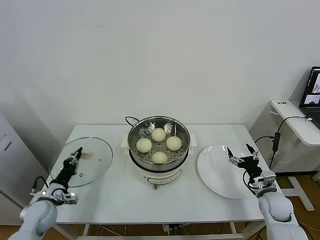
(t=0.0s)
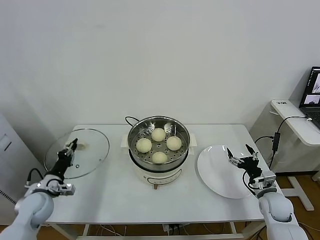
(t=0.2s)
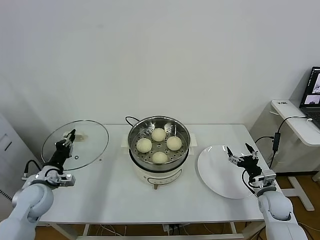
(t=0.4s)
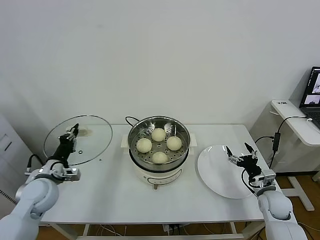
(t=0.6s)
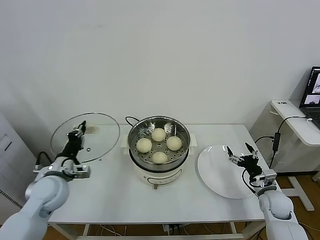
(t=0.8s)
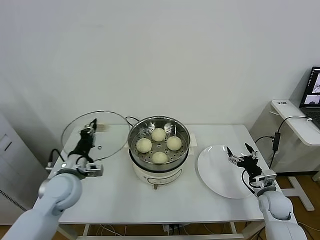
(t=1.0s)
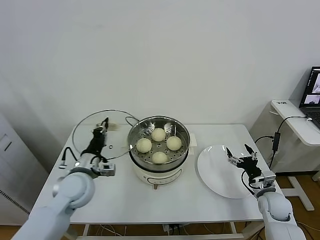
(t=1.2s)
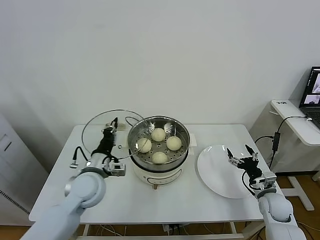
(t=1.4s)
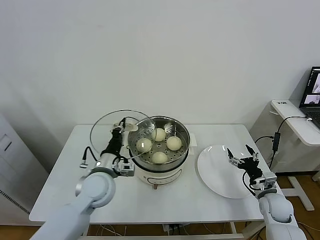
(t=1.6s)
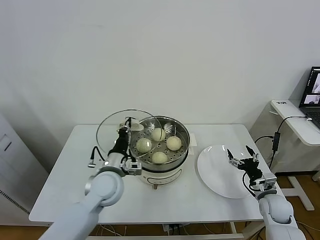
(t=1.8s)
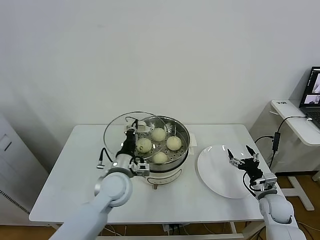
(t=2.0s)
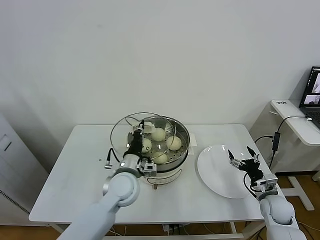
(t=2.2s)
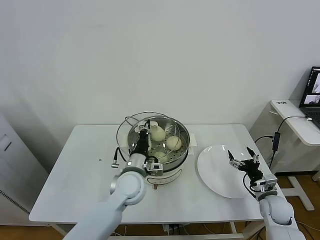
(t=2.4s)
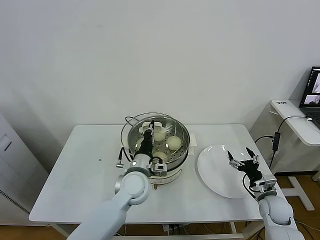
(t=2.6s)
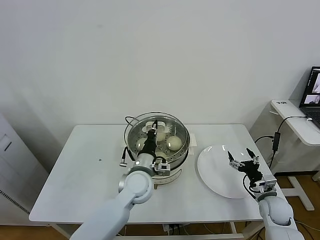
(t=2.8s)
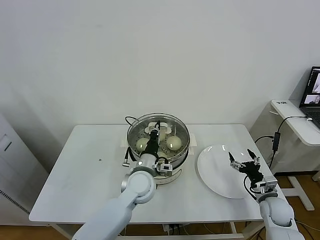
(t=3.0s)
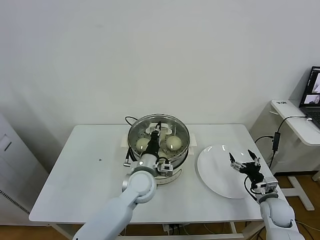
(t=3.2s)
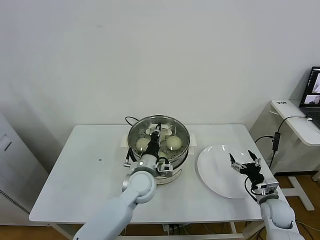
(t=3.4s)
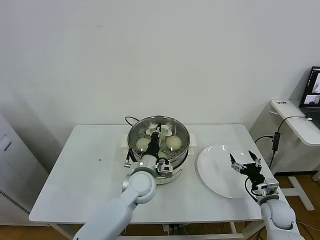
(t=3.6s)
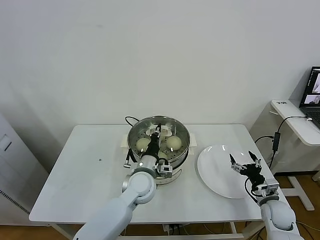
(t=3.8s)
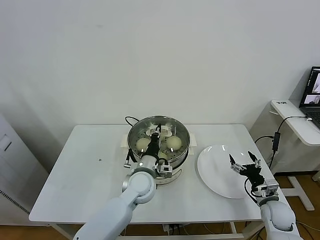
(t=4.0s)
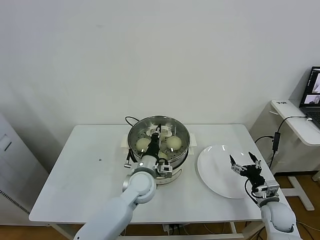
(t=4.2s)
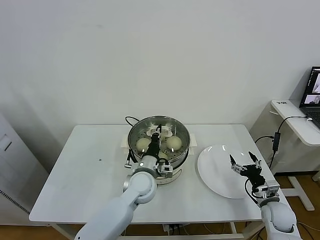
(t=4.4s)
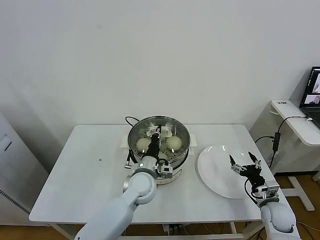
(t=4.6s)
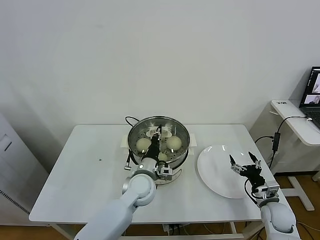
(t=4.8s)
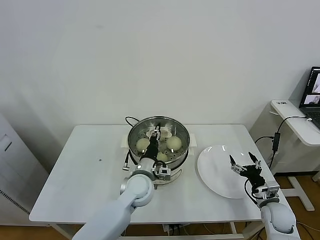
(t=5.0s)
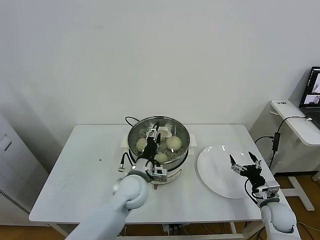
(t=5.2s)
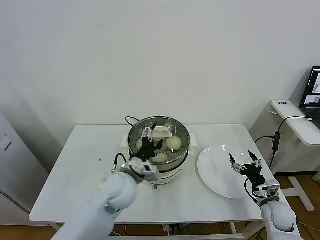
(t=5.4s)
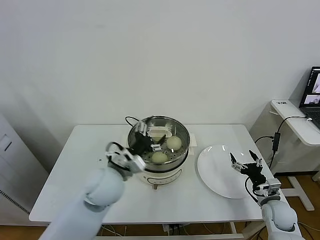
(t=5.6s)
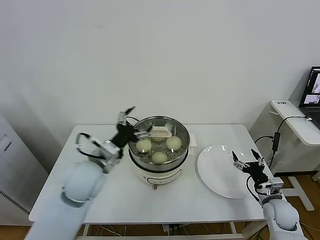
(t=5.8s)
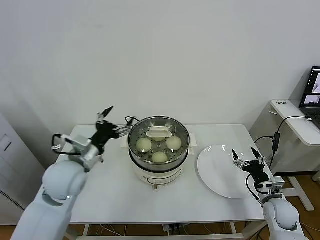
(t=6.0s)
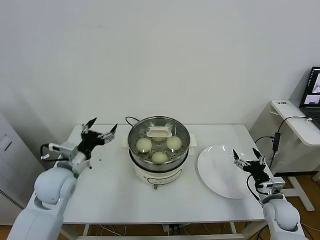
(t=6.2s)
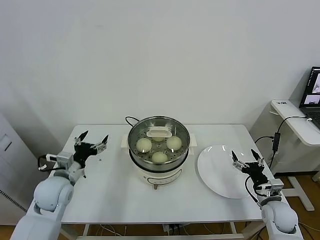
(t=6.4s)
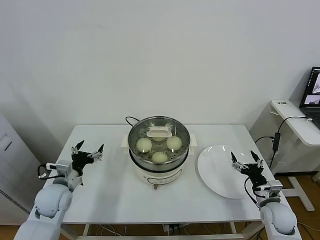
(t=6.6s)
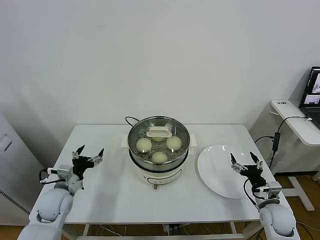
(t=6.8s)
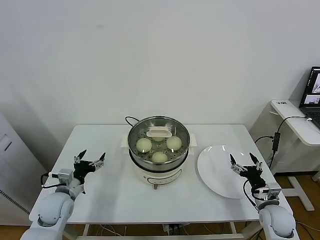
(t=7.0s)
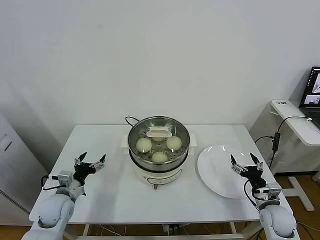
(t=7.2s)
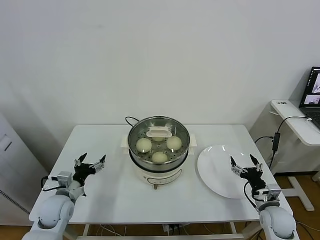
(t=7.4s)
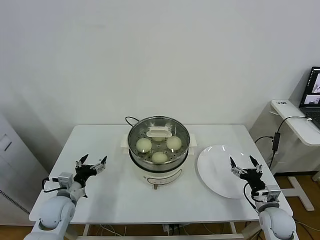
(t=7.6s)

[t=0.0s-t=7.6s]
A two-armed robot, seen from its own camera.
Task of the whole recording: take steamed baozi put them in steamer.
Step, t=0.0s to t=5.4s: Place the pot lid on the steamer with left gripper.
t=0.0s to t=1.6s: The left gripper travels to the right and upward by about 25 cm.
t=1.6s to t=3.0s: The left gripper goes about 10 cm to the right.
t=3.0s to t=4.6s: The grippers move only a little.
t=4.6s to t=6.0s: The left gripper shifts roughly 20 cm to the left and upward, and opens its fingers.
t=6.0s to t=7.6s: The left gripper goes roughly 20 cm downward and to the left.
